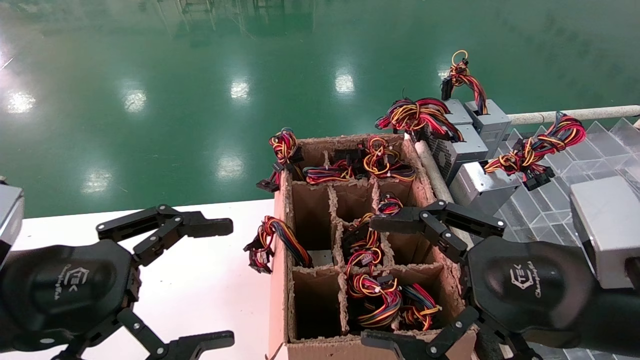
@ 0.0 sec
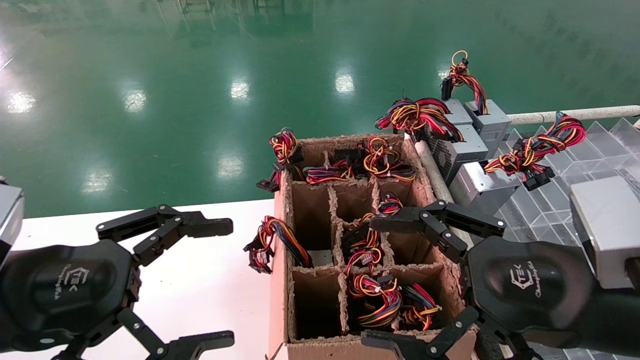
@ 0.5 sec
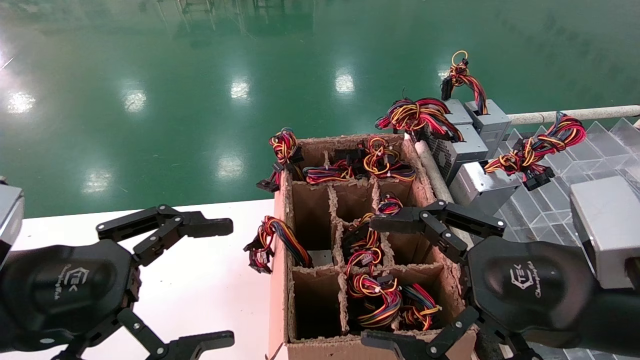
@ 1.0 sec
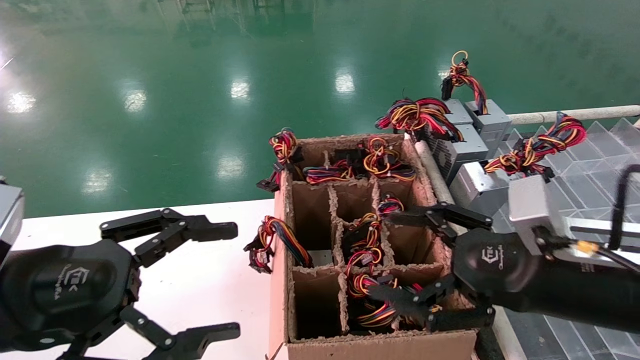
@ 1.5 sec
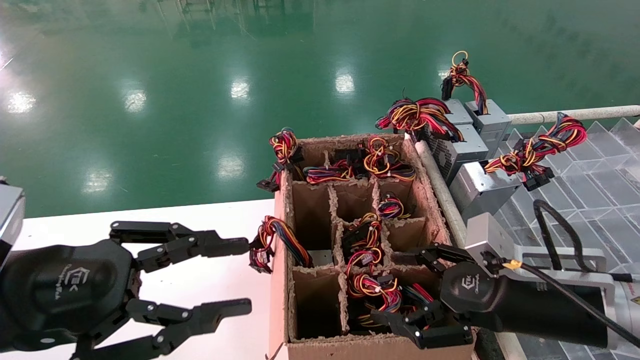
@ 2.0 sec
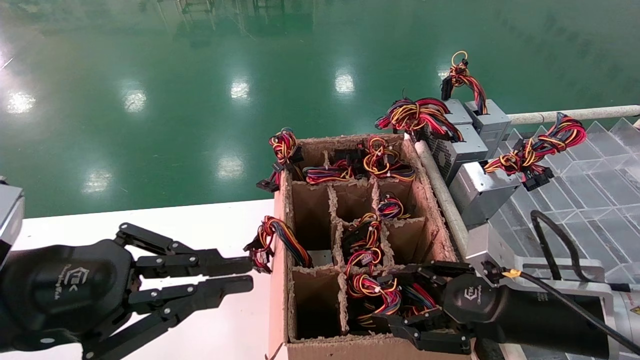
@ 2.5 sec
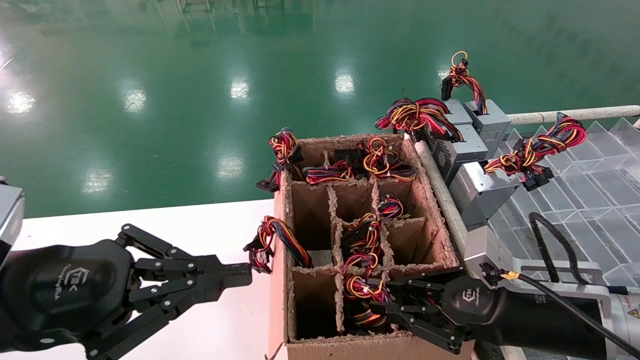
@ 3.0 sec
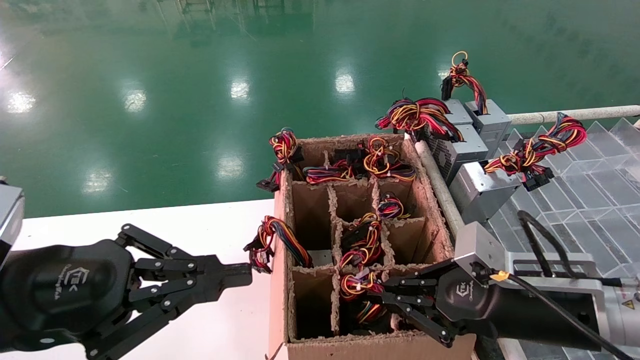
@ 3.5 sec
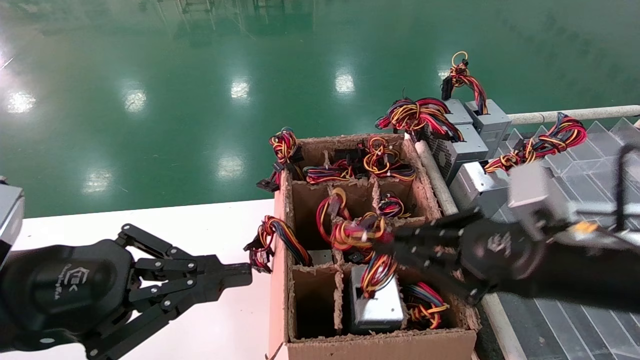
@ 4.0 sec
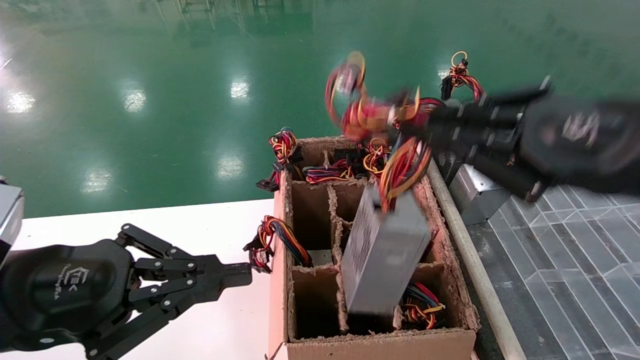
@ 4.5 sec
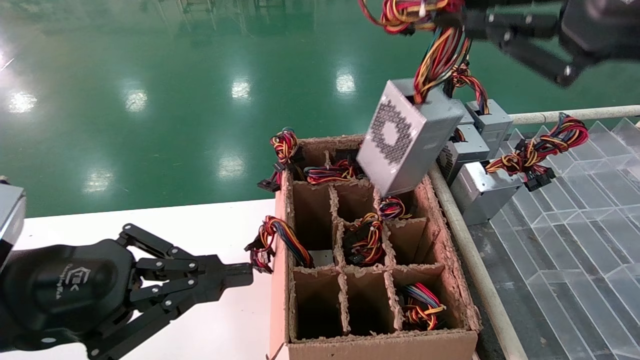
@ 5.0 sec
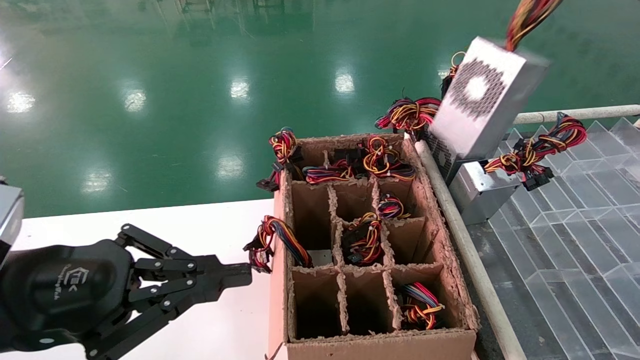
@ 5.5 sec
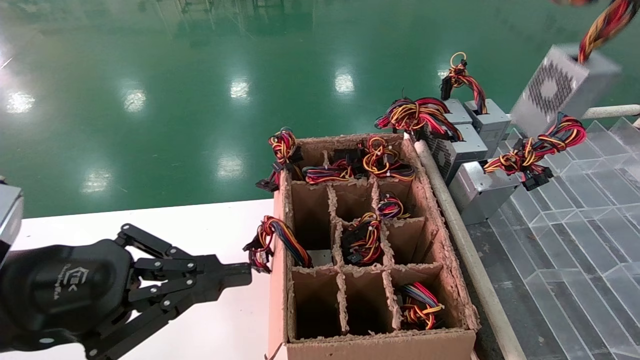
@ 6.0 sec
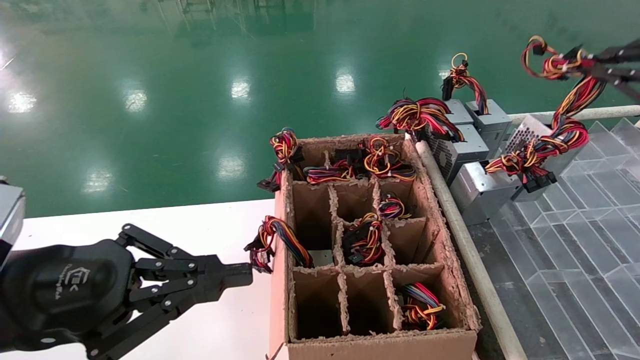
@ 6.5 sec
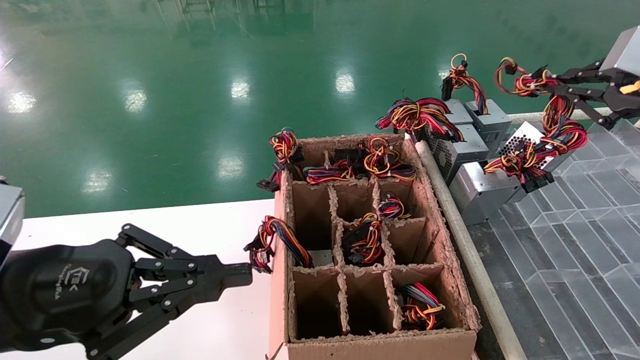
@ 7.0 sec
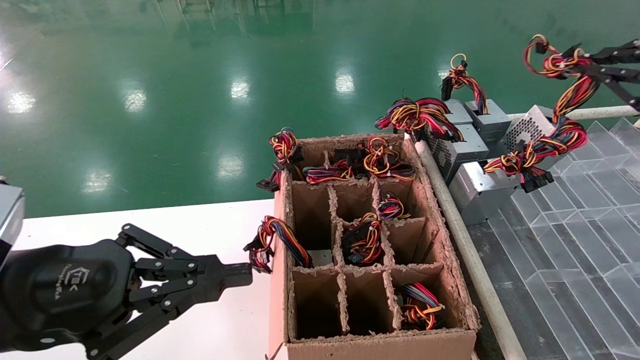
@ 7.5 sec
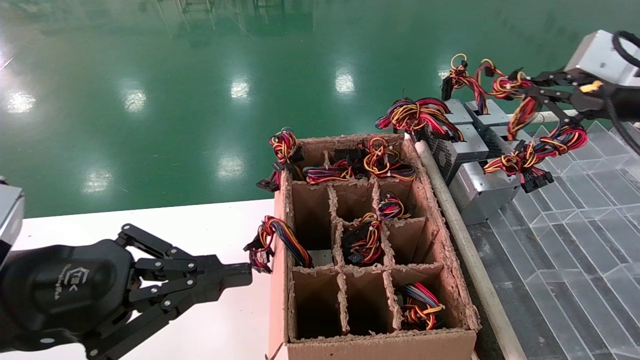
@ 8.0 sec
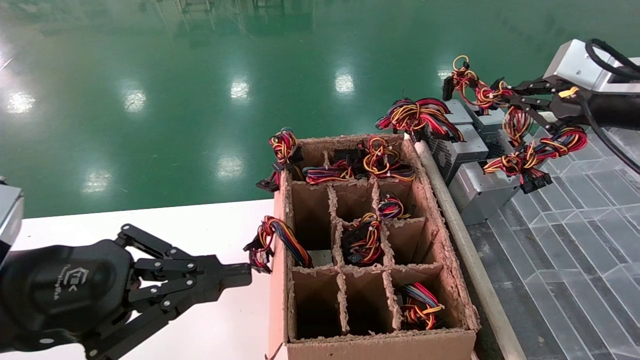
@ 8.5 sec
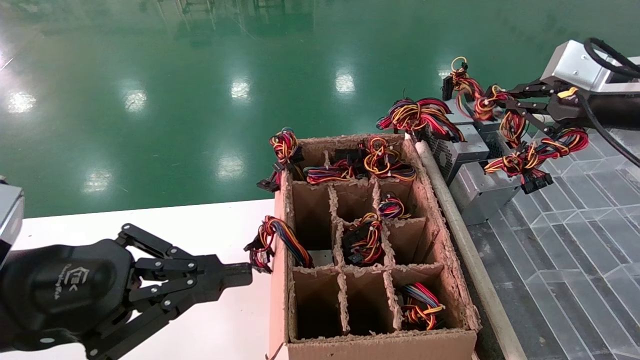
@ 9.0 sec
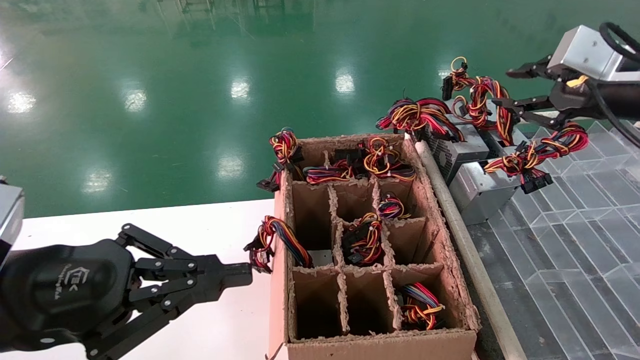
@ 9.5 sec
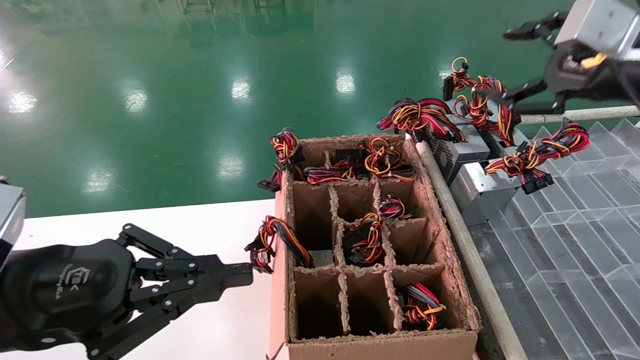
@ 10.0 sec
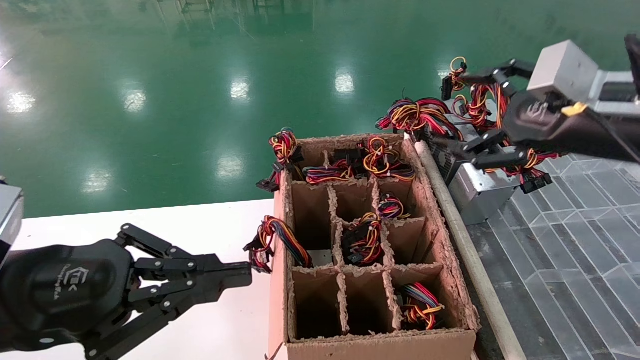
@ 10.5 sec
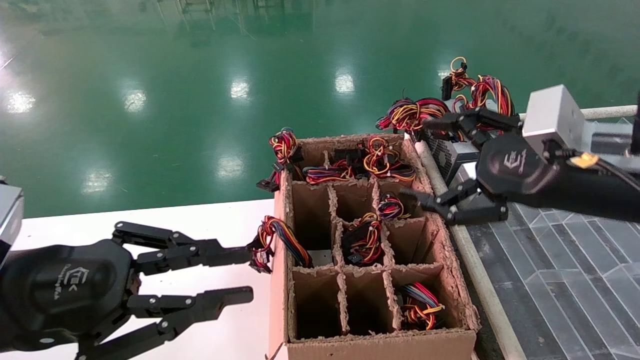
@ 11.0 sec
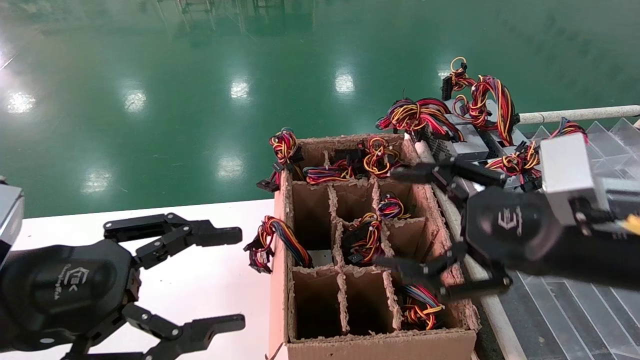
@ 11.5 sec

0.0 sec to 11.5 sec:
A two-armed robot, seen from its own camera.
Step, 1.5 sec to 3.0 sec: Grab the main unit power supply from the containment box.
Step, 3.5 sec to 9.0 sec: Place the main unit power supply in the designated area.
0.0 sec to 2.0 sec: The right gripper moves forward and downward, some 10 cm, while the left gripper closes up.
2.0 sec to 4.0 sec: The right gripper goes some 5 cm upward, and closes its fingers. The left gripper closes its fingers.
4.0 sec to 6.0 sec: The right gripper travels upward and to the right by approximately 25 cm.
6.0 sec to 7.5 sec: The right gripper goes roughly 10 cm downward and forward.
7.5 sec to 9.5 sec: The right gripper travels to the left by approximately 5 cm.
9.5 sec to 11.5 sec: The right gripper moves downward, to the left and backward, some 20 cm, and opens up. Meanwhile the left gripper opens.

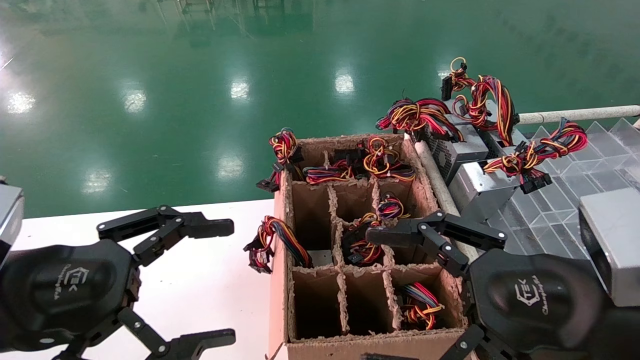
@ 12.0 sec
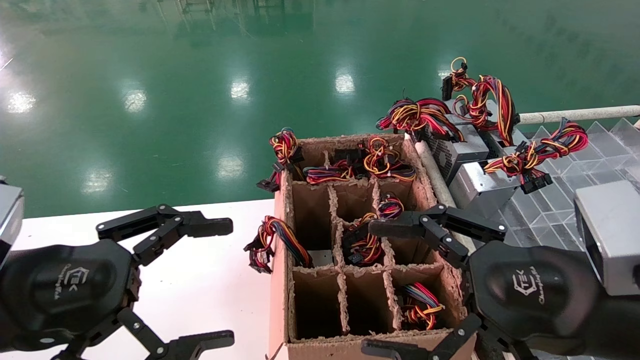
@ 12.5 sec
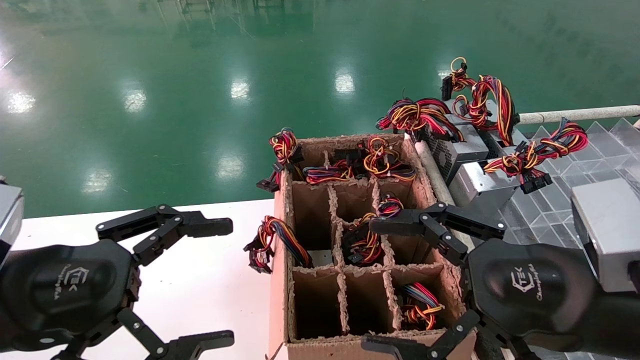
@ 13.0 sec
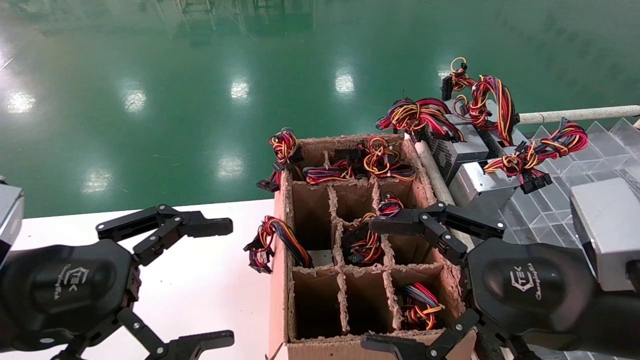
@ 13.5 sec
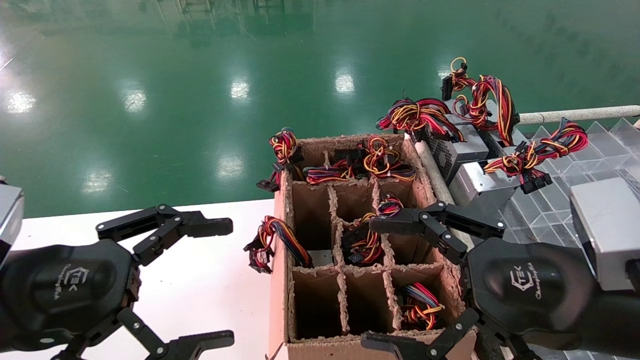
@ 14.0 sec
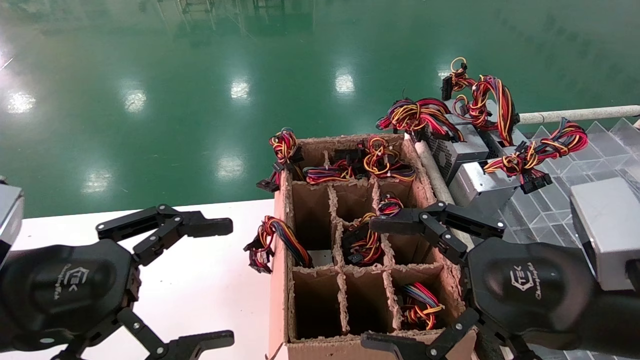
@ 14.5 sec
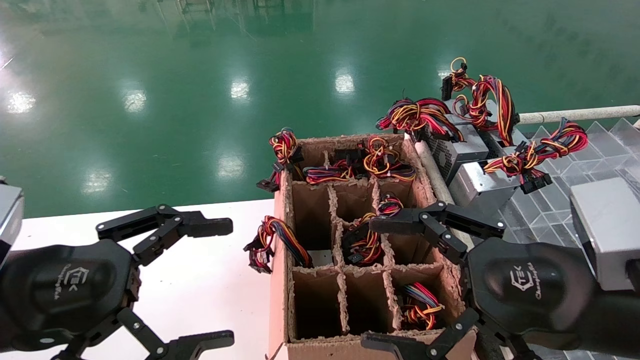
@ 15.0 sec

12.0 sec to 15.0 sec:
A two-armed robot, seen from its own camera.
12.0 sec to 15.0 sec: Both grippers stay about where they are.

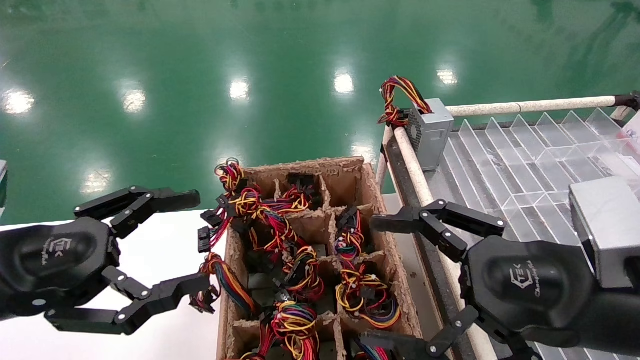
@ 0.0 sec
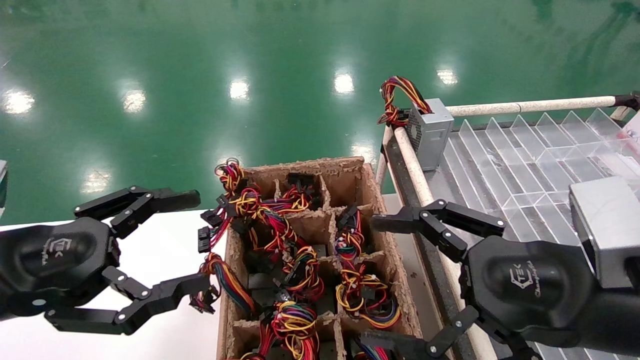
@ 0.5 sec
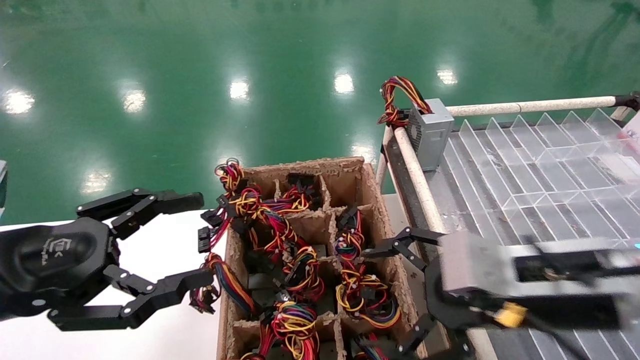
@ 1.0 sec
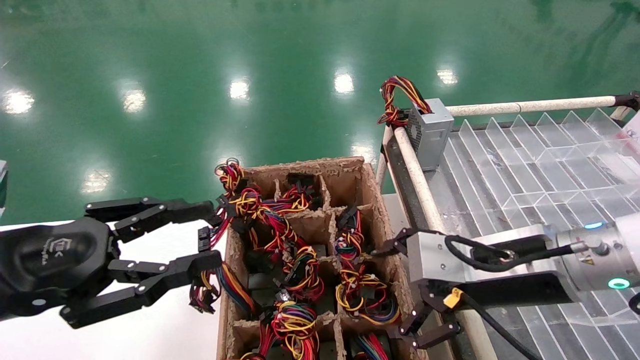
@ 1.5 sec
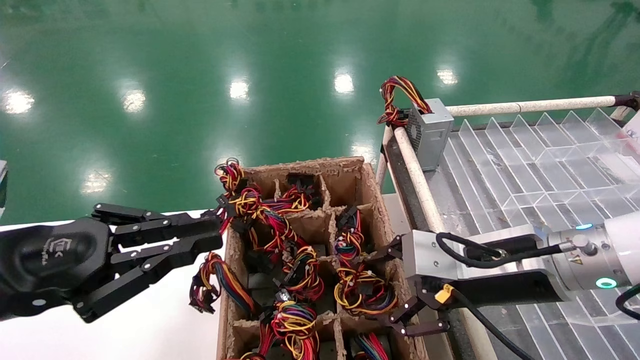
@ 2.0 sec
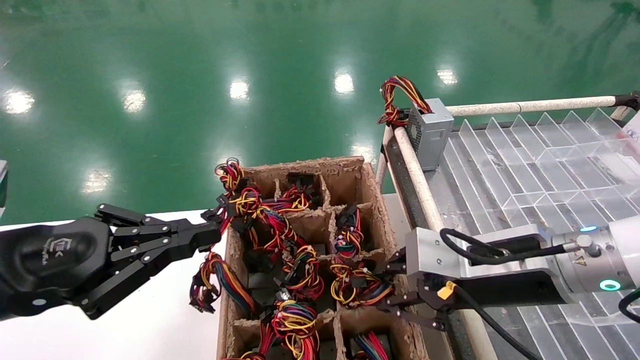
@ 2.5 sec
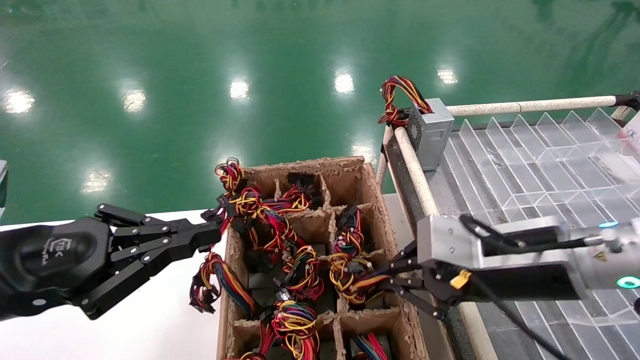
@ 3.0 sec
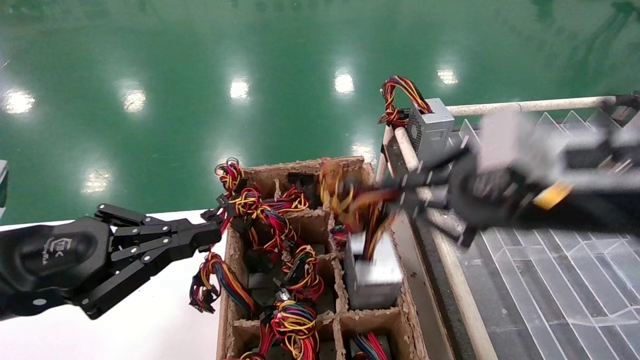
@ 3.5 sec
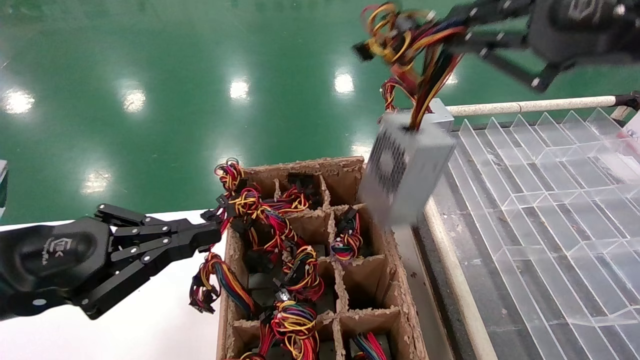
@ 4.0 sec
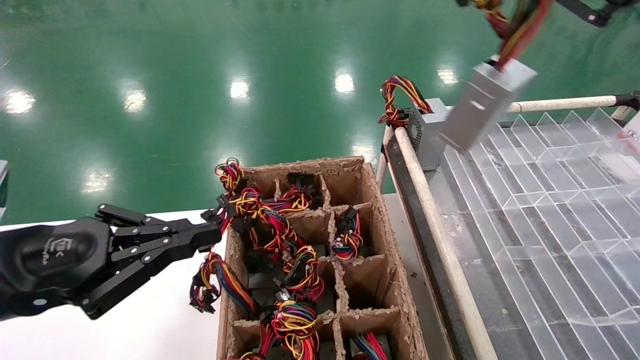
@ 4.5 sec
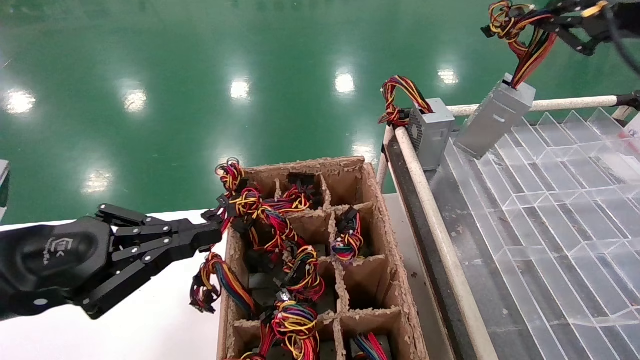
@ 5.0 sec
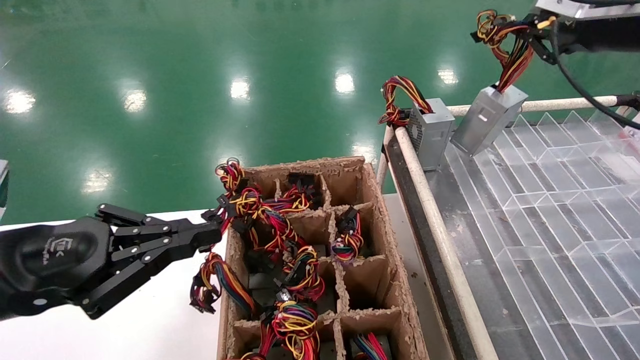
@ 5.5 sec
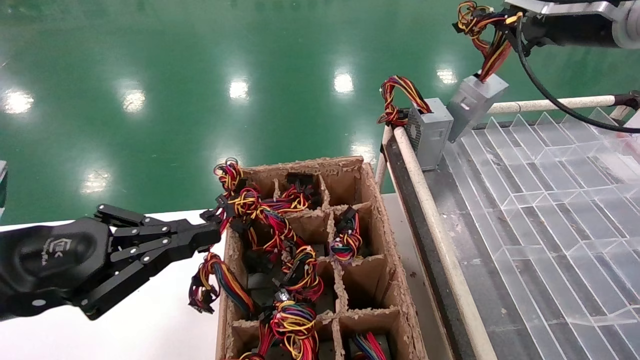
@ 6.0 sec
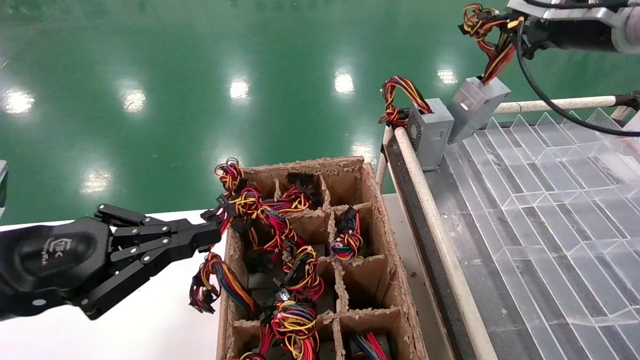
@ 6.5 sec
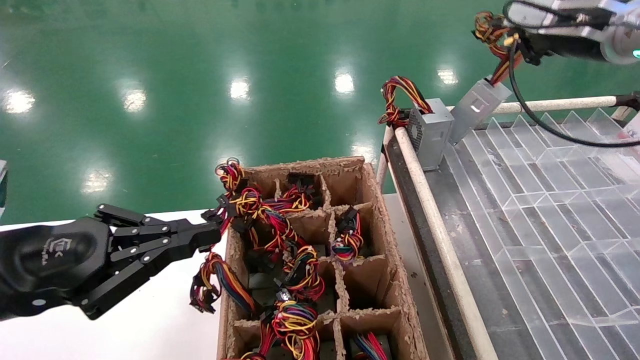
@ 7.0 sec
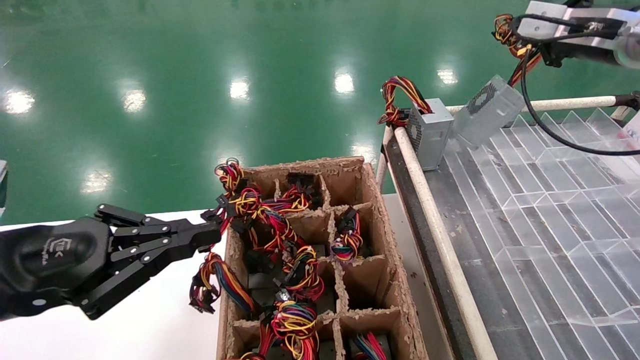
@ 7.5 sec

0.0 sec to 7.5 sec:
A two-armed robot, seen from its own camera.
Step, 1.5 sec to 2.5 sec: Grab the main unit power supply from the containment box.
0.0 sec to 2.0 sec: The left gripper closes up; the right gripper is displaced forward by roughly 10 cm.
2.0 sec to 4.0 sec: The right gripper goes about 20 cm upward, and closes up.
4.0 sec to 5.5 sec: The right gripper travels forward and to the right by roughly 20 cm.
5.5 sec to 7.5 sec: The right gripper moves some 5 cm.
